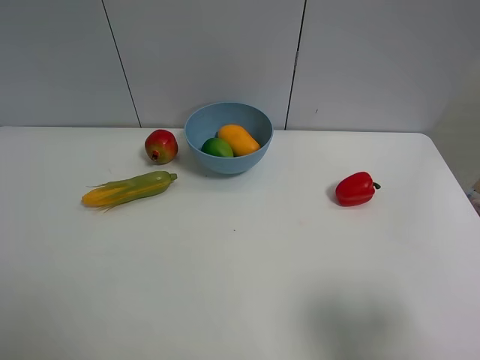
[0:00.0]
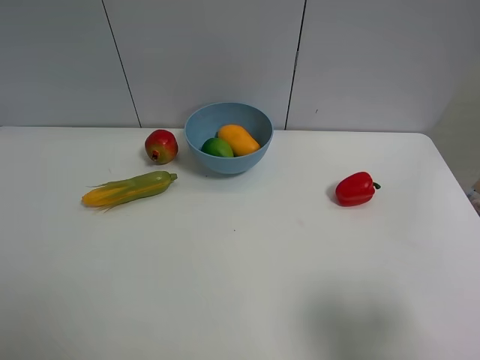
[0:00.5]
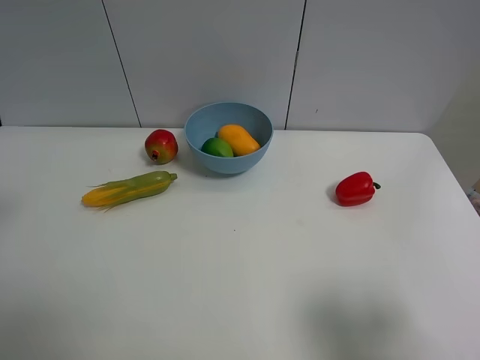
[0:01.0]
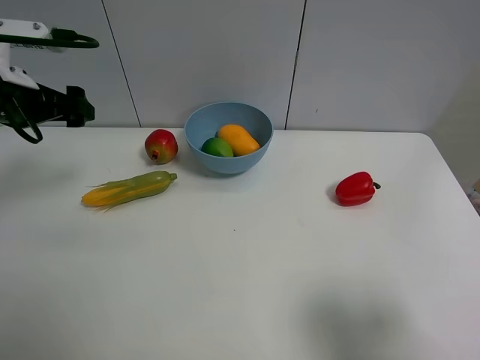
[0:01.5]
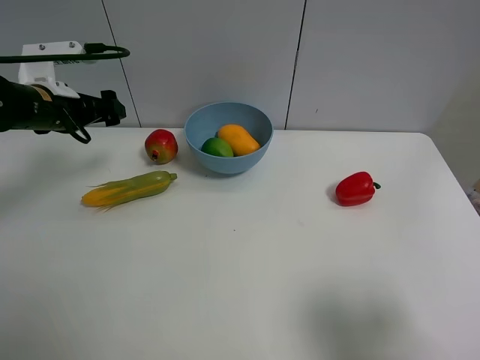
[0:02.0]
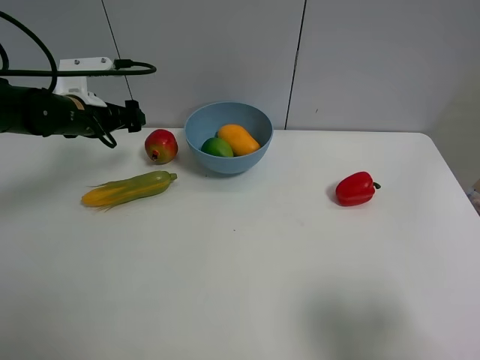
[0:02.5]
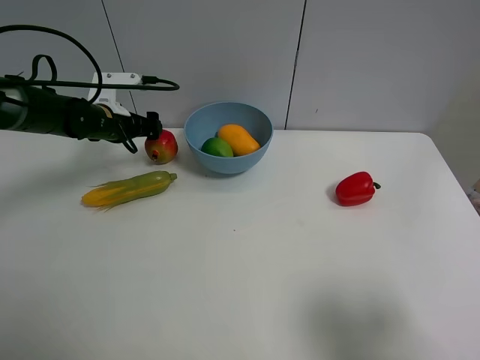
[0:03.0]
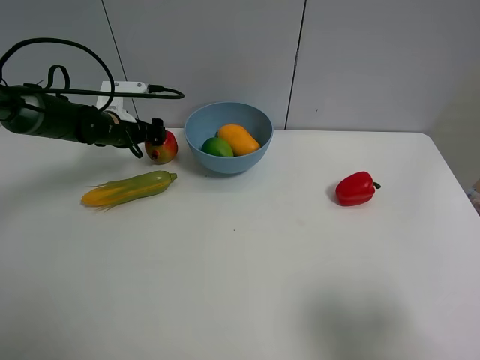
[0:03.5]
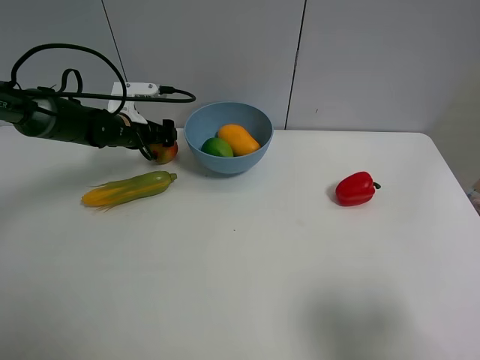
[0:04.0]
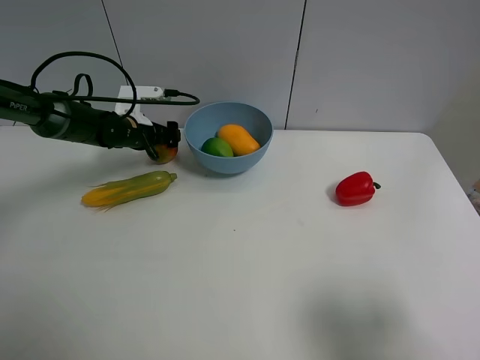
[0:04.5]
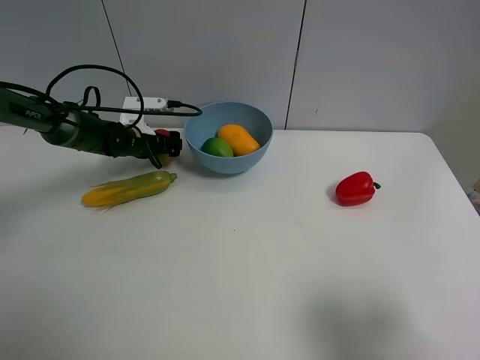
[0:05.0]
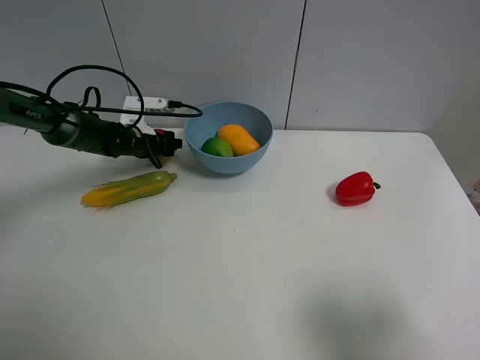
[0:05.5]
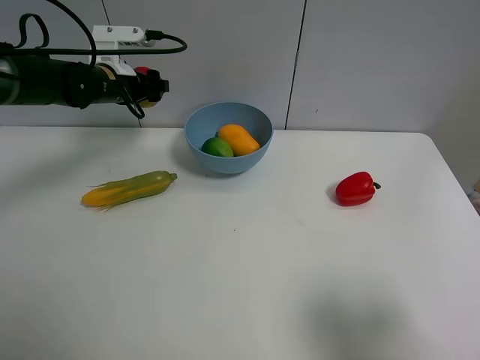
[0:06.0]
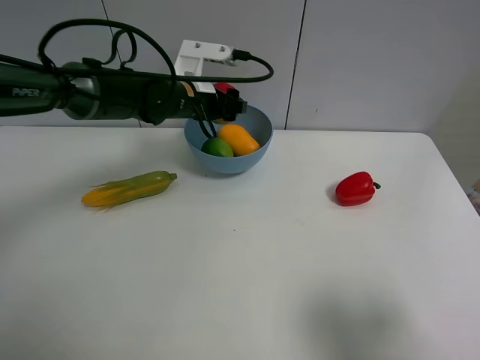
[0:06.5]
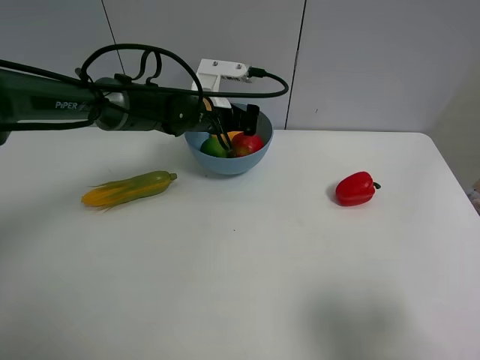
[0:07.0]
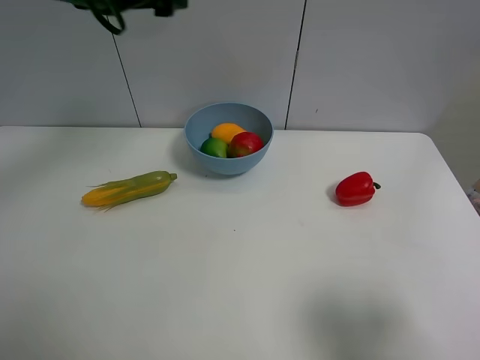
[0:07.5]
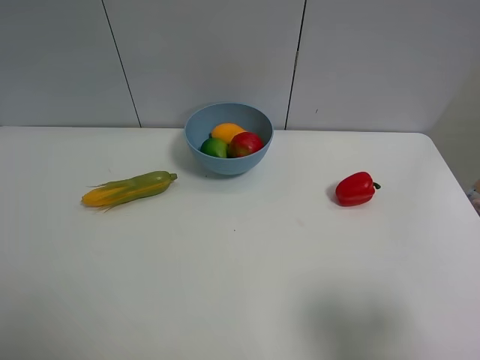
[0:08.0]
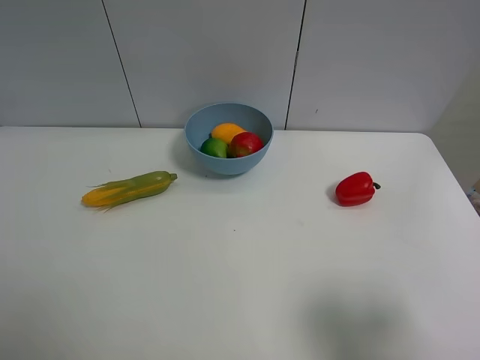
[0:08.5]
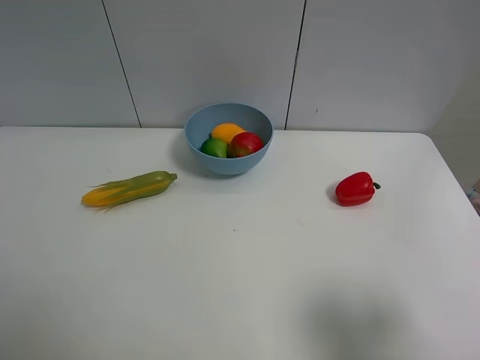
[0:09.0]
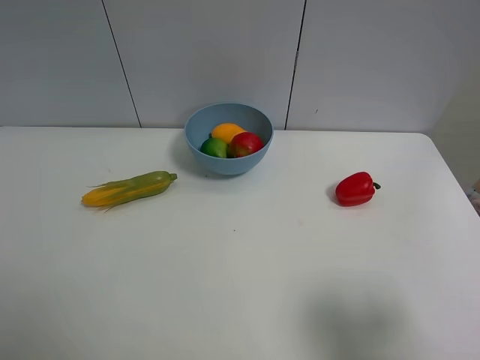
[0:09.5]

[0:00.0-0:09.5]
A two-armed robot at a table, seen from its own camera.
Task of the whole recording: Put the three fruits on the table into a bowl.
Step, 0:00.0 to 0:05.0: Grasp the pomegranate with left gripper.
Step, 0:05.5 to 0:07.0: Place the pomegranate in the blue bowl with left gripper.
0:00.0 to 0:02.0: The left gripper travels forward by about 35 cm.
0:02.0 to 0:04.0: The left gripper shifts some 15 cm downward, forward and to the right.
0:04.0 to 0:05.5: The left gripper closes up.
0:05.5 to 0:07.5: The left gripper shifts some 30 cm upward, and opens.
0:07.5 to 0:09.5: The left gripper heads backward, to the left and downward, covering about 40 cm.
